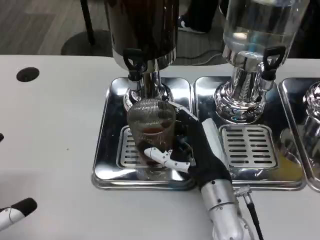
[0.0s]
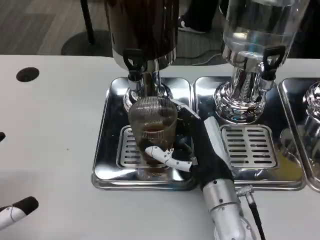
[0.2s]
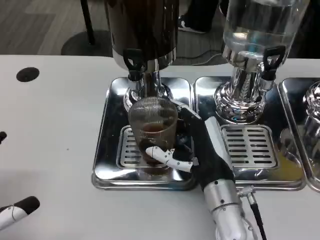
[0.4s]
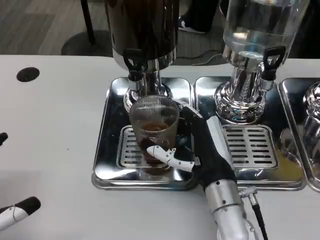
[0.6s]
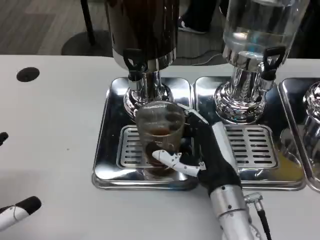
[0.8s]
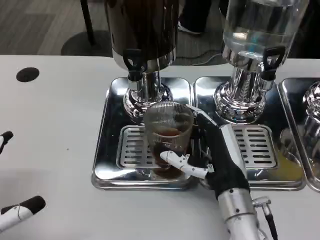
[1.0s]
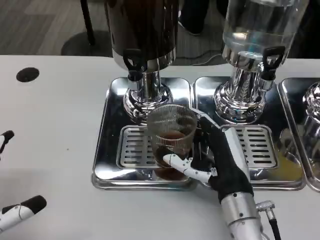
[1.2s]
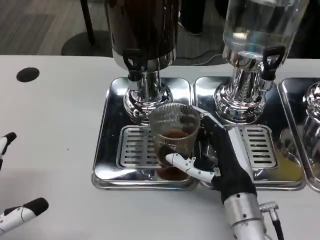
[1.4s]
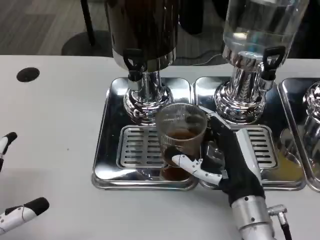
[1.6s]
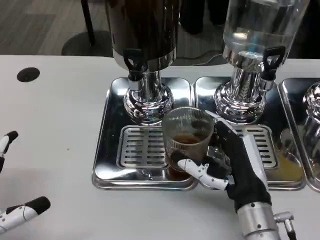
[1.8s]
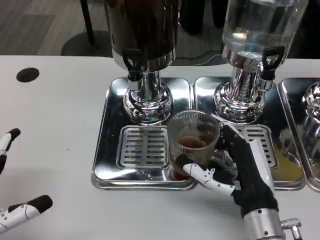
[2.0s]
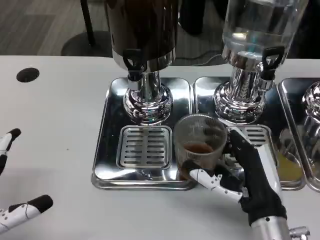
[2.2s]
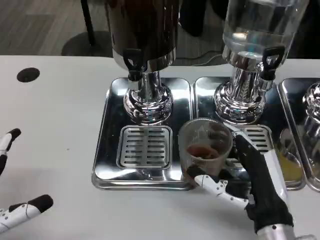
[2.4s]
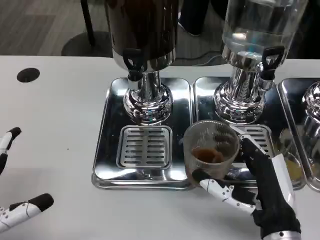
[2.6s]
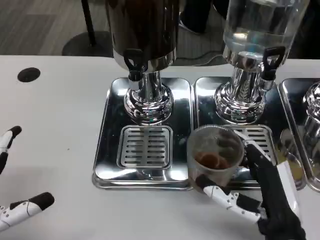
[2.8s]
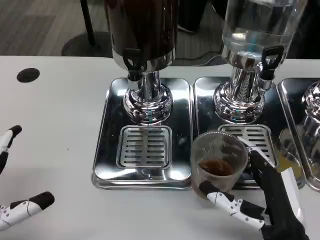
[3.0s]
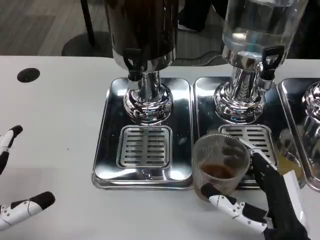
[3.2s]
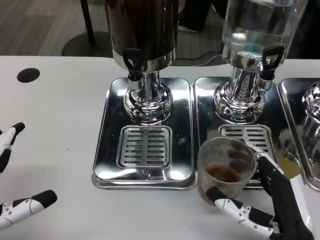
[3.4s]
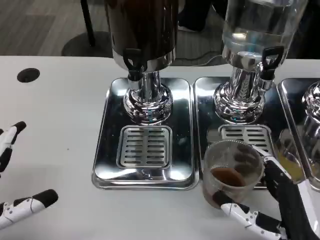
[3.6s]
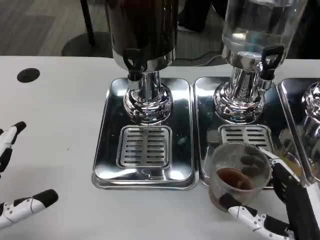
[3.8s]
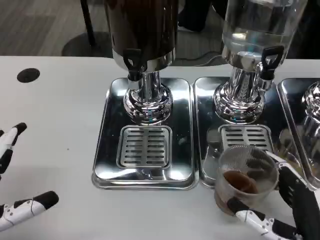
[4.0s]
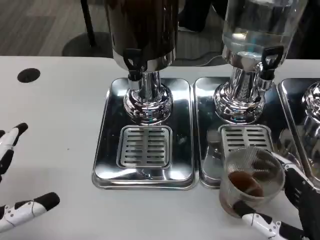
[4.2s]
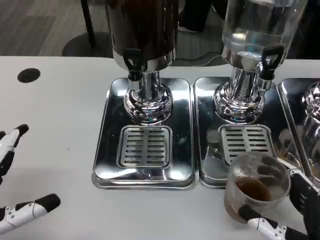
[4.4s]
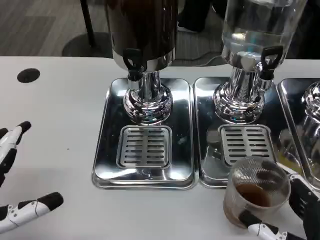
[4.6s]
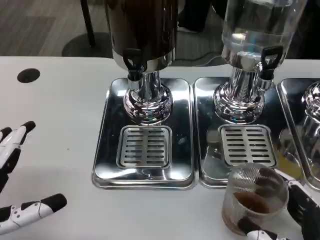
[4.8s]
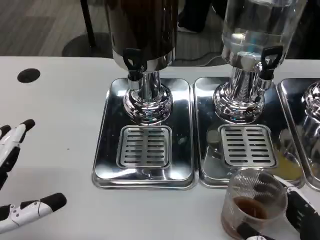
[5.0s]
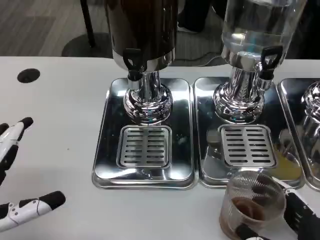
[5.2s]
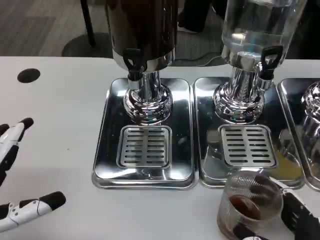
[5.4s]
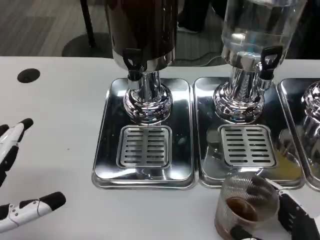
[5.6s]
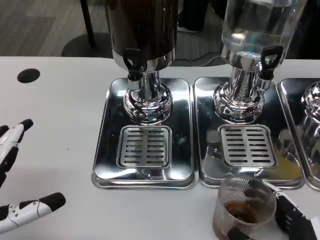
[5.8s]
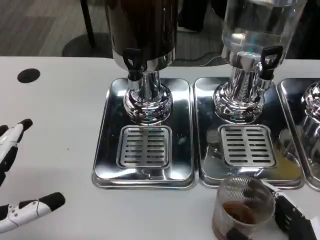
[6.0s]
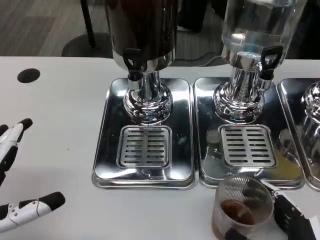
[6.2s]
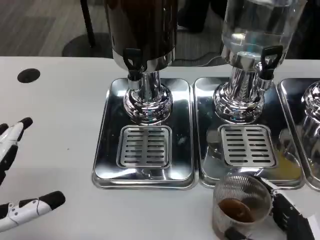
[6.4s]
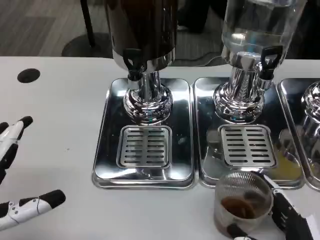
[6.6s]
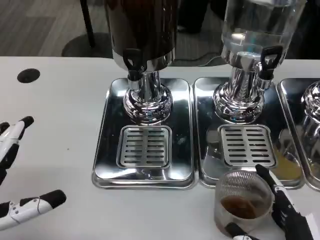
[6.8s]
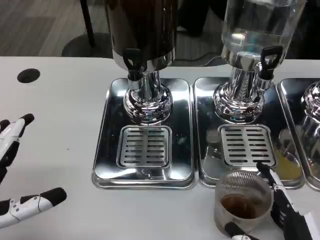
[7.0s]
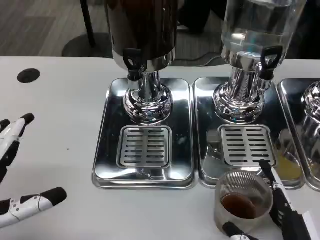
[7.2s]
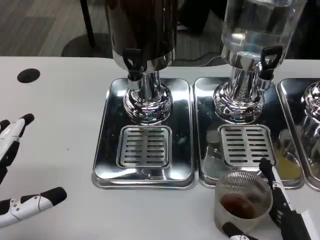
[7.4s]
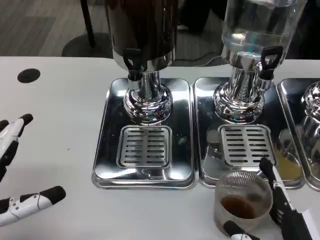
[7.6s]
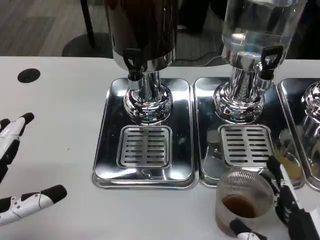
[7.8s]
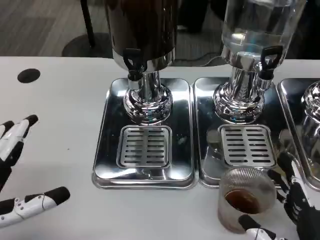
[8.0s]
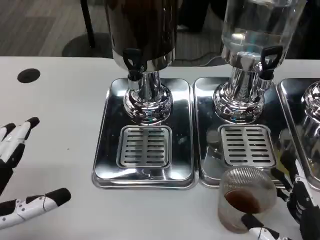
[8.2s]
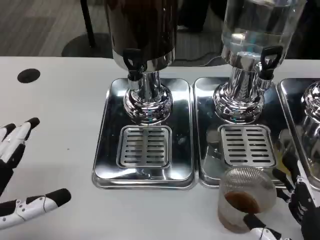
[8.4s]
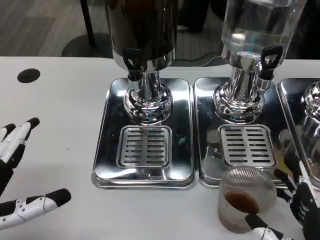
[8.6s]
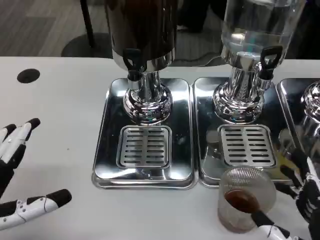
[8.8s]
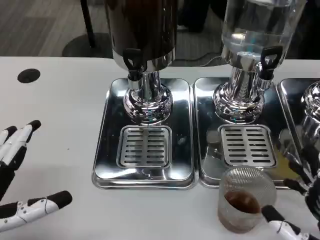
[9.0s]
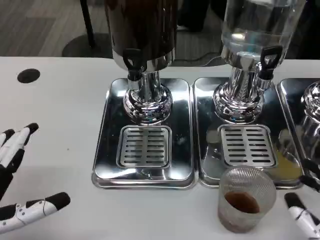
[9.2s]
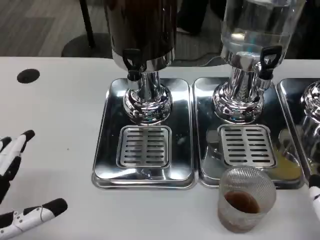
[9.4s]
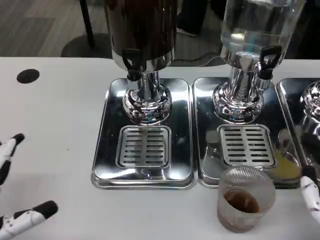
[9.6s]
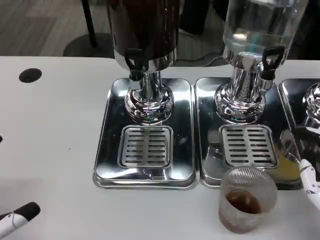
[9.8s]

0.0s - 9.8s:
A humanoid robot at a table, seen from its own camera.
Task of the whole recording: Grasp the cup under the faucet to collect the drink, then remove the cup.
0.0s - 1.4s: There are only small adjustments of the hands.
1.4s - 2.8s: The right hand travels backward by approximately 5 cm.
2.8s - 4.2s: The right hand shifts some 5 cm to the right.
4.2s - 5.6s: The hands make only small movements.
5.6s - 7.0s: Neither hand changes place.
7.0s - 8.4s: The hands make only small movements.
8.4s - 9.8s: The right hand ends up roughly 5 cm from where it was.

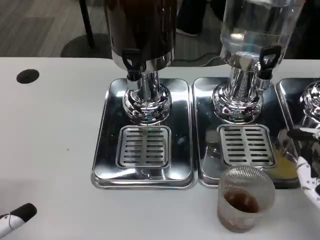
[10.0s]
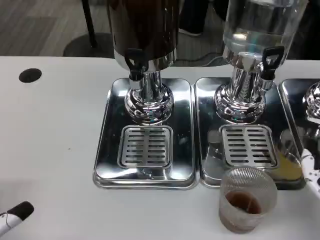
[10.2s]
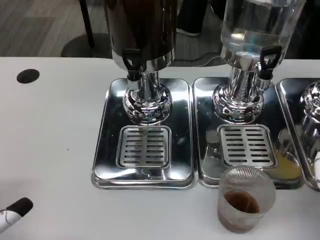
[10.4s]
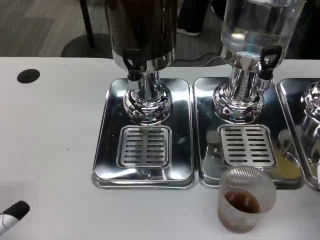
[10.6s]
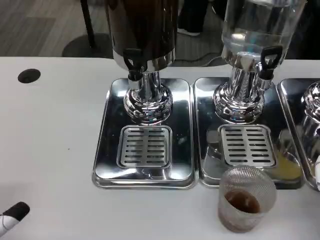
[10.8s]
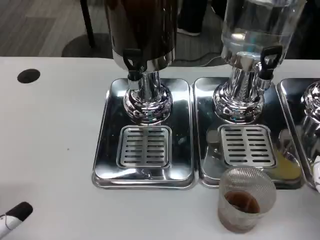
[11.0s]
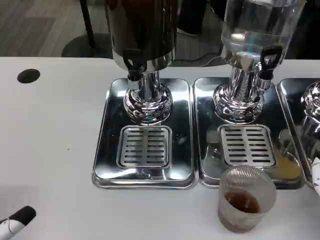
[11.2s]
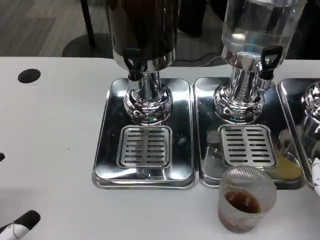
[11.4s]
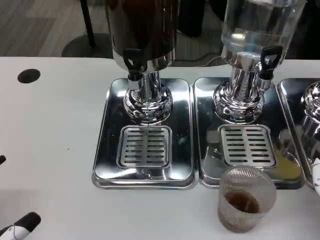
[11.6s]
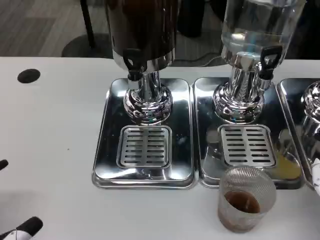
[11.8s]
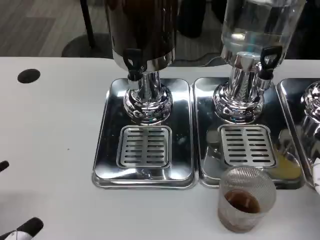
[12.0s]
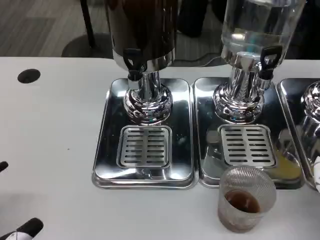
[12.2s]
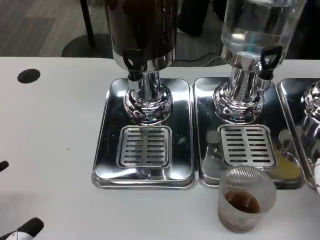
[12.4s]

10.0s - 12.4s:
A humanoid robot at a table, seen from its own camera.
Task of the whole recording: Grasp the cup under the faucet to collect the drink, then remove the cup.
10.0s - 12.4s: The hands make only small movements.

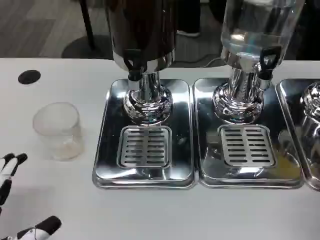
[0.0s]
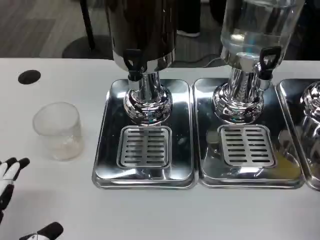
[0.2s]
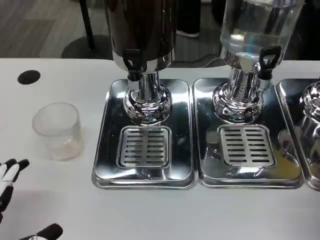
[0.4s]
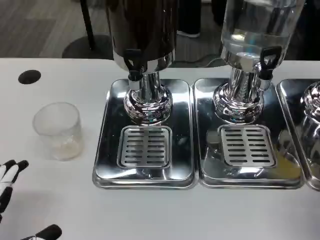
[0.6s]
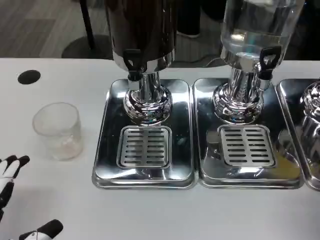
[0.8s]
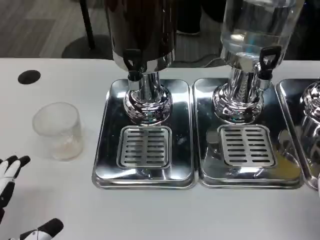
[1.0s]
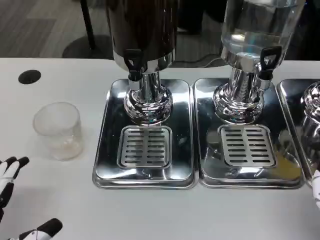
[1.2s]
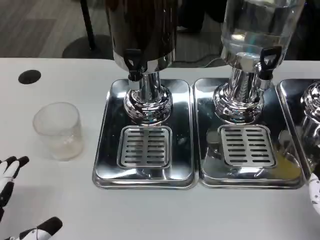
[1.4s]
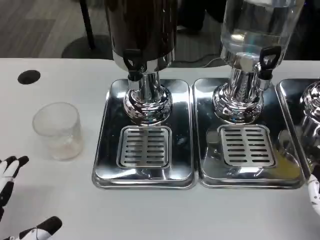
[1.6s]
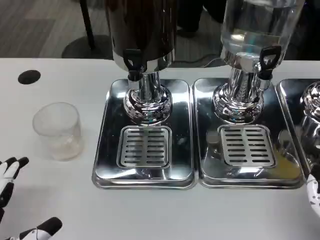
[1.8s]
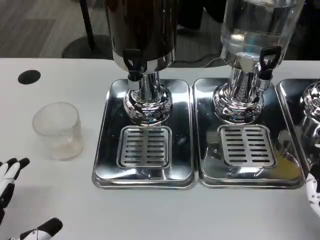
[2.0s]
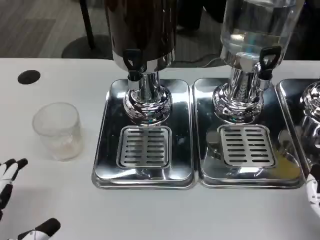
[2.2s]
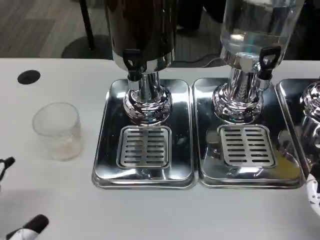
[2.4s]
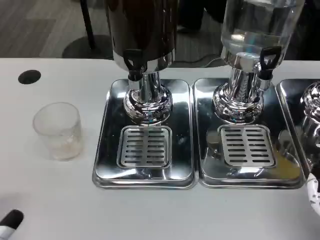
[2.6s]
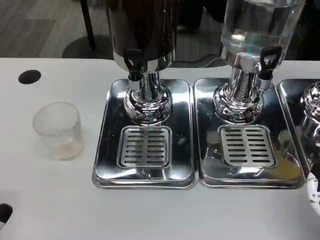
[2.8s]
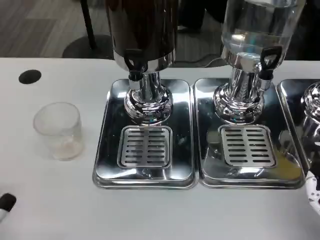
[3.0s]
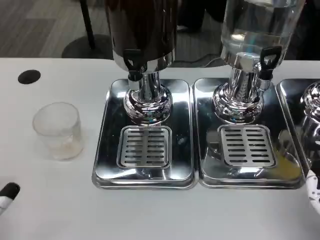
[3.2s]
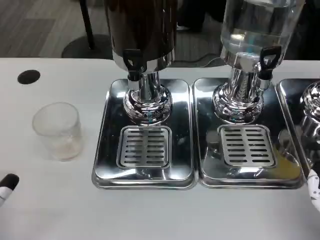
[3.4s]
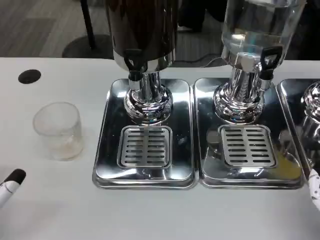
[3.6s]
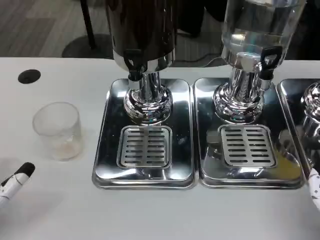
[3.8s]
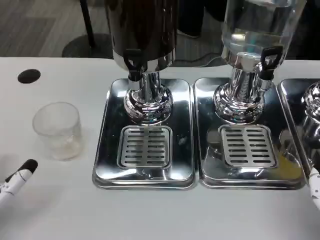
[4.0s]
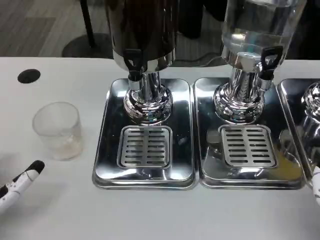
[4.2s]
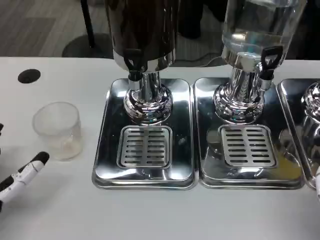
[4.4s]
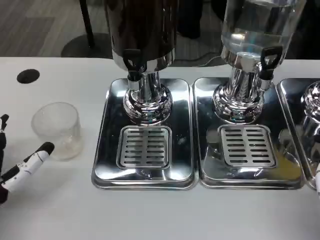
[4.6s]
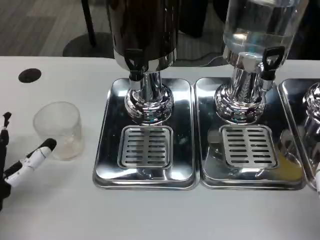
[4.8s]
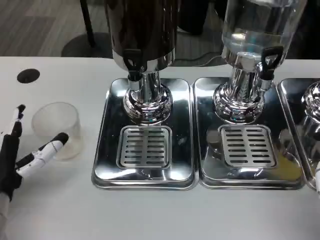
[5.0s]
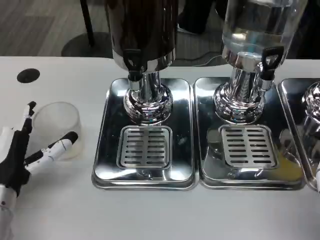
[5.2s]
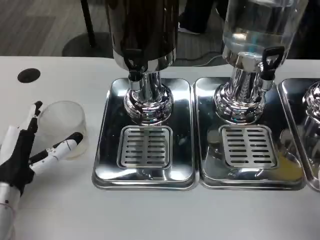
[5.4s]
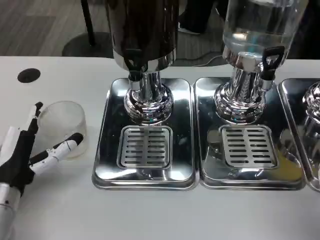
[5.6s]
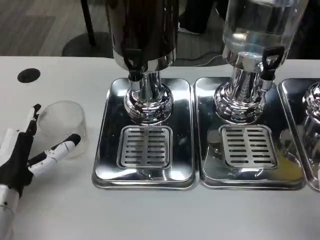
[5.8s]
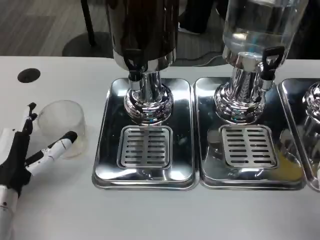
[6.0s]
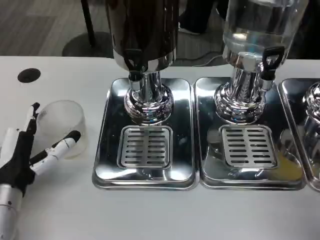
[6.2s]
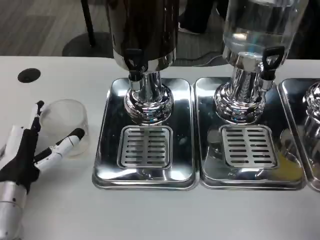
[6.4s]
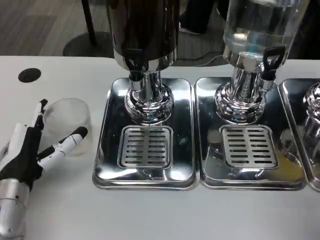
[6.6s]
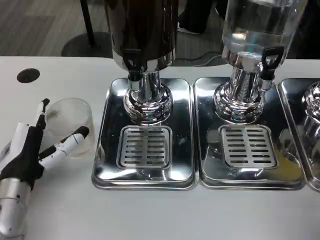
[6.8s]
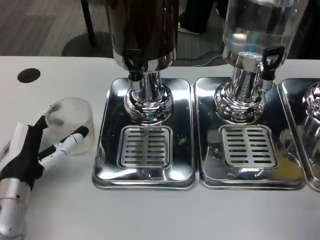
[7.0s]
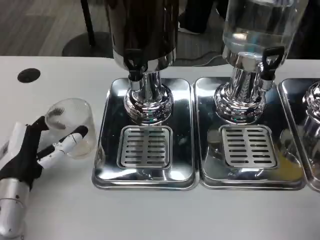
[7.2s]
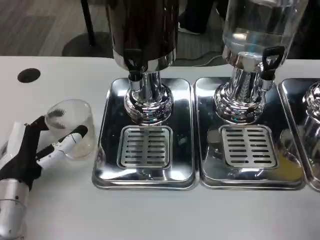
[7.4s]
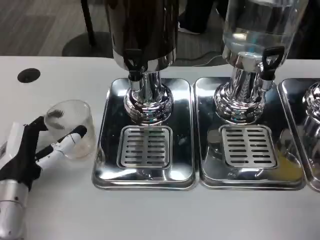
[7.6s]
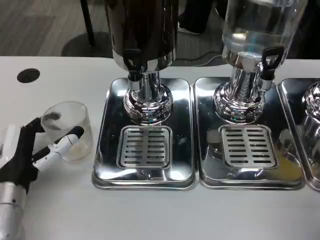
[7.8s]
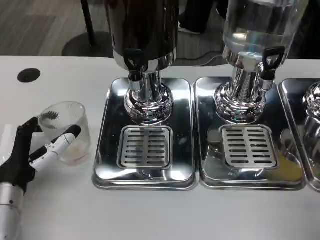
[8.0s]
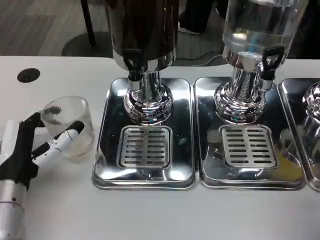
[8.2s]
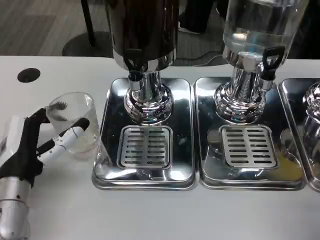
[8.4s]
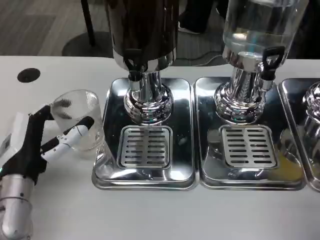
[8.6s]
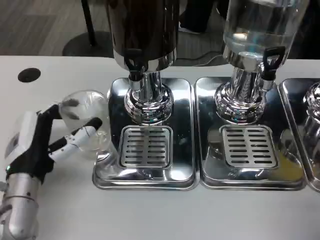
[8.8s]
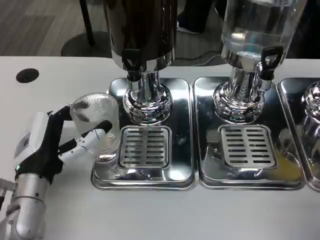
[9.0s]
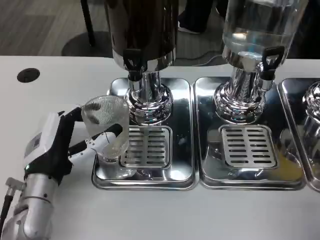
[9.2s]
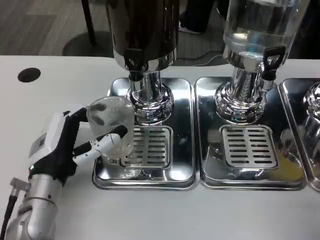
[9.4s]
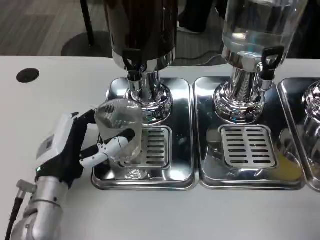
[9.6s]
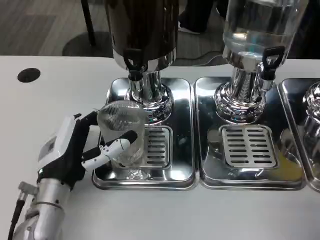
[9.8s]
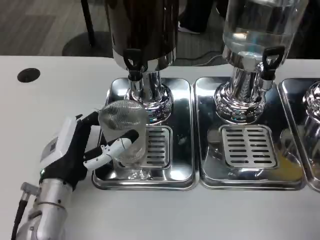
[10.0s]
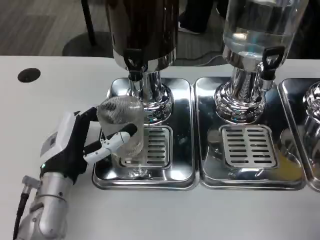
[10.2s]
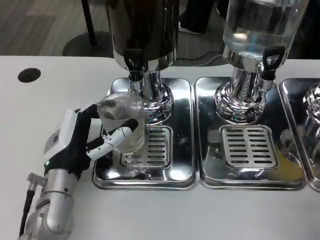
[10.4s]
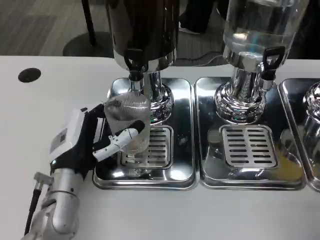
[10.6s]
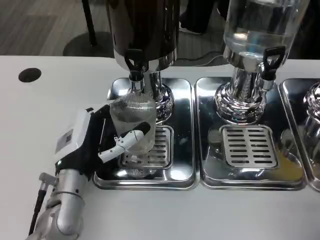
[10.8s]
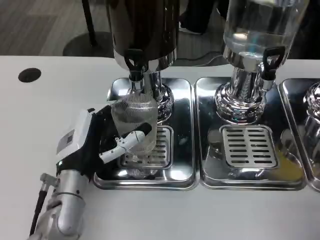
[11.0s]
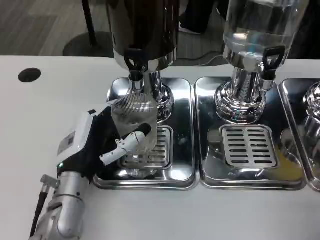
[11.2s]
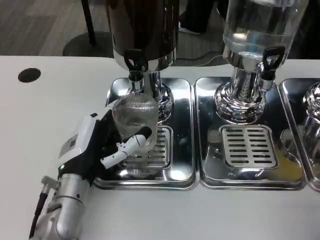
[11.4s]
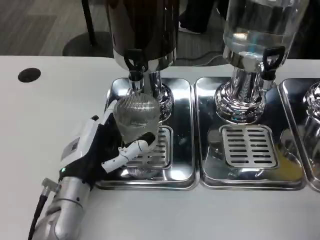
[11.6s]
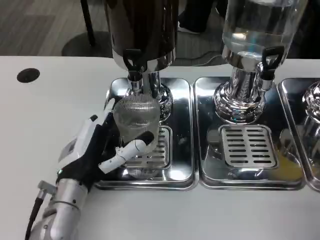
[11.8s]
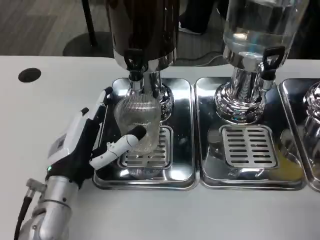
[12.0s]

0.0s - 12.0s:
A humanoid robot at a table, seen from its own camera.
Task of the whole recording: Grasp the cup under the faucet to collect the drink, then remove the cup.
0.0s - 1.6s: There are only small adjustments of the hands.
3.0s - 4.4s: The left hand shifts about 10 cm forward.
4.4s - 6.0s: The left hand shifts by approximately 5 cm.
6.0s - 9.0s: There are only small adjustments of the hands.
10.4s - 12.0s: There are only small adjustments of the hands.
